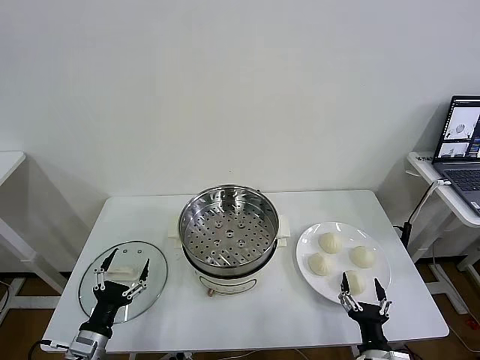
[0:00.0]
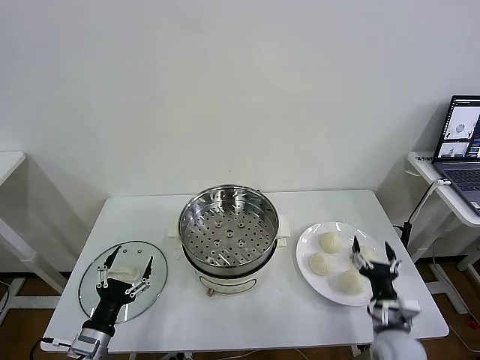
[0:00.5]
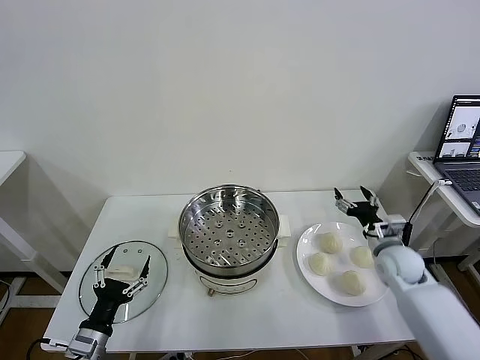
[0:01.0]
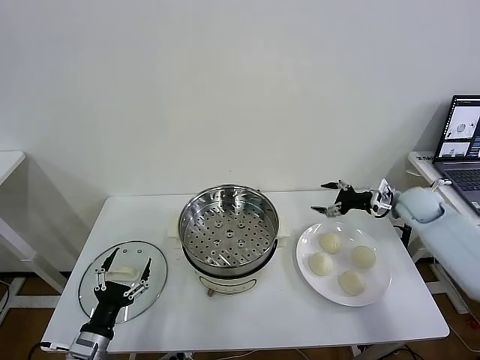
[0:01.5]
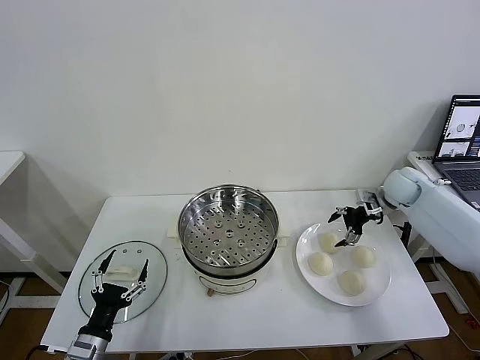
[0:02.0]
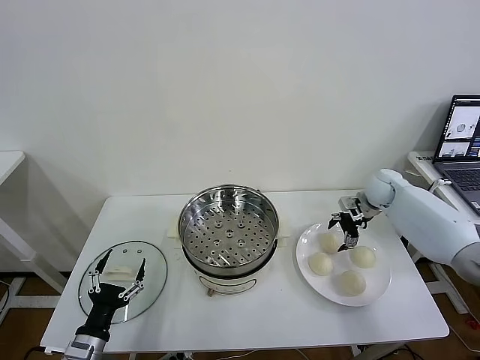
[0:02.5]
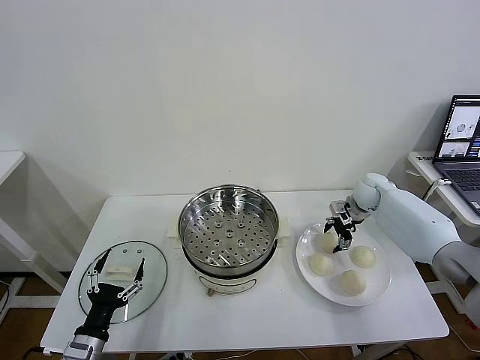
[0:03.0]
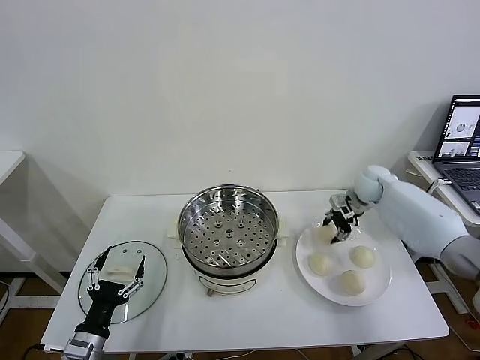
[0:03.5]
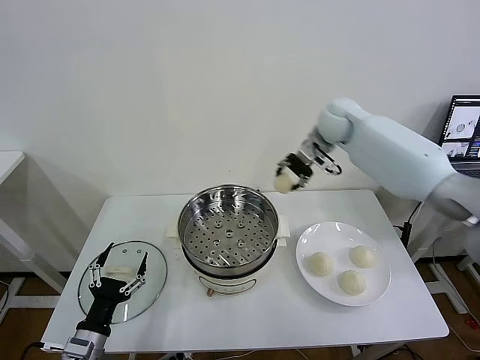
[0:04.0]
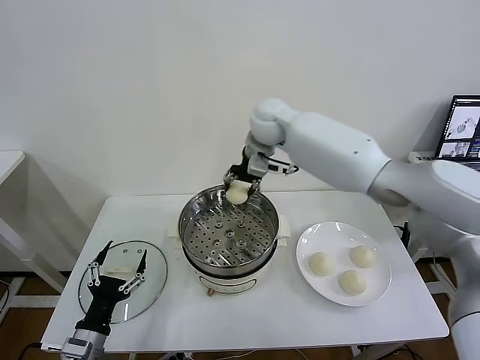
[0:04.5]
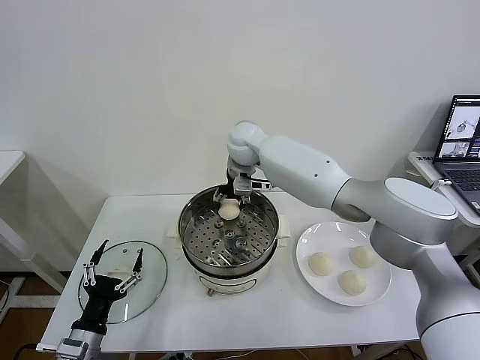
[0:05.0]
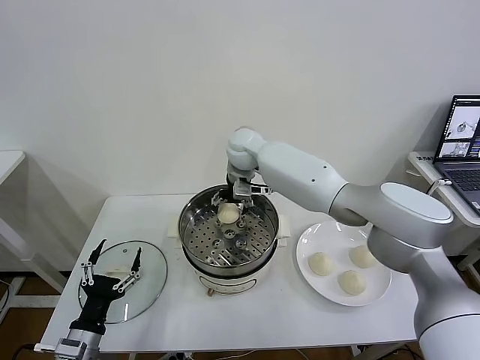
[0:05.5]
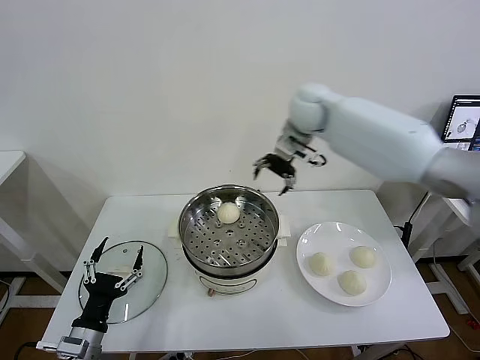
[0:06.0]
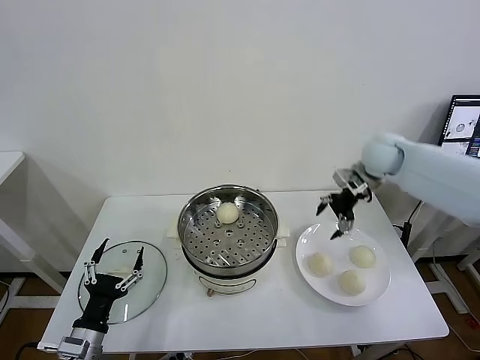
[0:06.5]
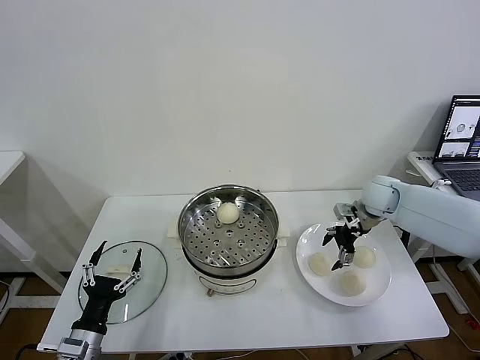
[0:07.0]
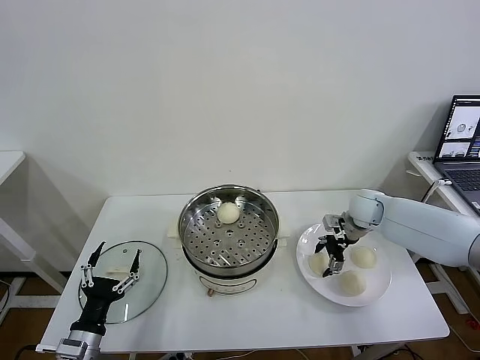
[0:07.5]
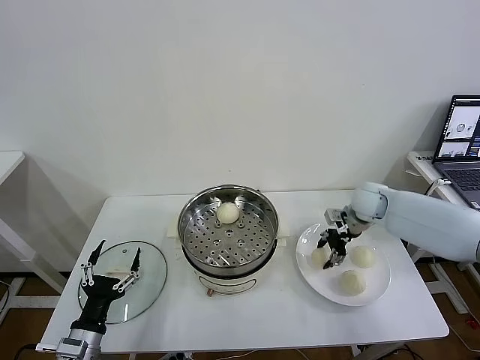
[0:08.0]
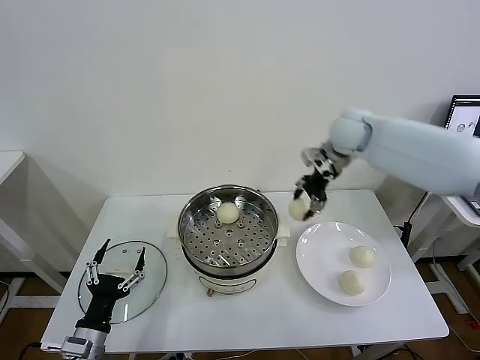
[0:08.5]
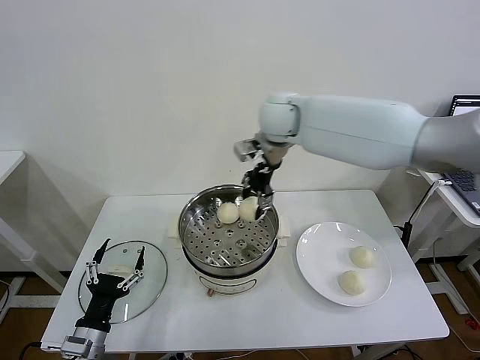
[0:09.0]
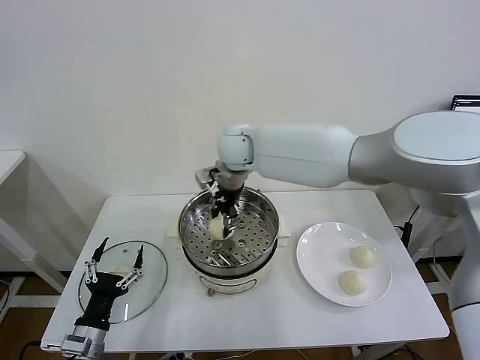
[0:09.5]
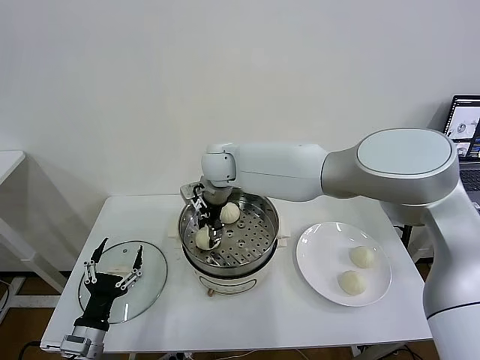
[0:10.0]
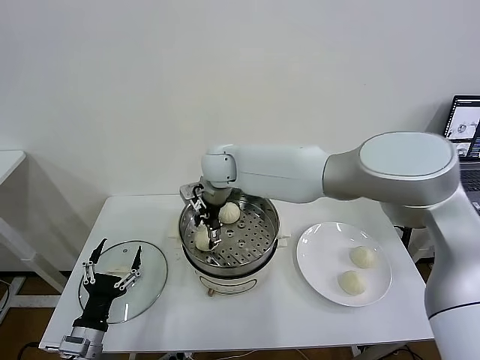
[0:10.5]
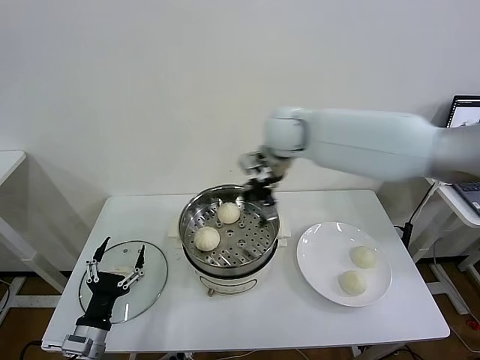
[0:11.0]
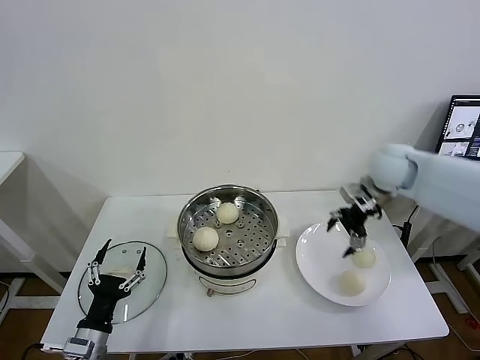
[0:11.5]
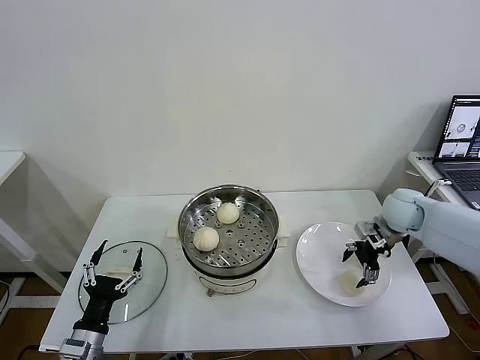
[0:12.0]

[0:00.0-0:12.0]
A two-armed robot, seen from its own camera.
Task of the whole recording: take steamed baozi put them in steamer then cover it.
Step, 0:00.0 to 0:03.0: Grasp the baozi in the plate with right gripper.
Step, 0:03.5 to 0:05.0: Place the baozi on the steamer with right gripper.
Step, 0:06.0 to 0:07.5: Grasp the baozi in the plate with right gripper.
Step, 0:08.0 to 0:10.0: Place the baozi on the steamer with right gripper.
0:02.0 to 0:04.0: The right gripper shifts roughly 30 cm to the left and upward, and closes up.
0:04.0 to 0:06.0: The right gripper reaches about 15 cm to the left, then returns, and opens.
0:06.0 to 0:08.0: The right gripper heads downward and to the right, covering some 25 cm, and closes up.
0:08.0 to 0:10.0: The right gripper is displaced to the left by roughly 35 cm.
0:10.0 to 0:12.0: The right gripper is displaced to the right by about 40 cm, and opens its fingers.

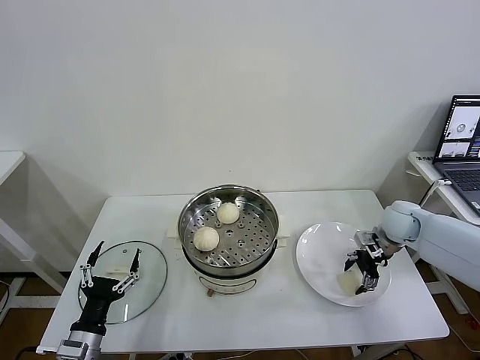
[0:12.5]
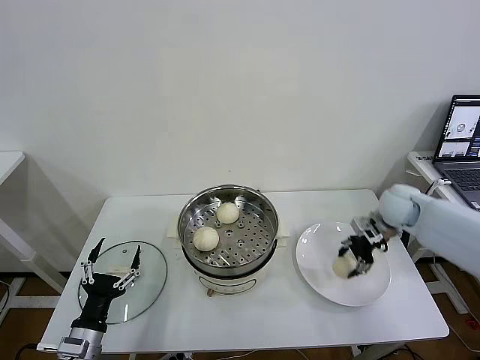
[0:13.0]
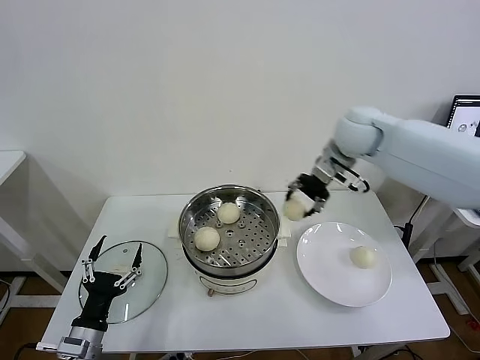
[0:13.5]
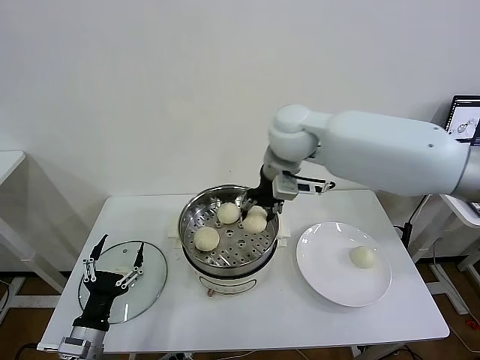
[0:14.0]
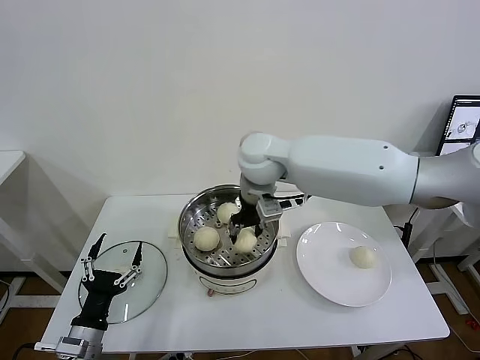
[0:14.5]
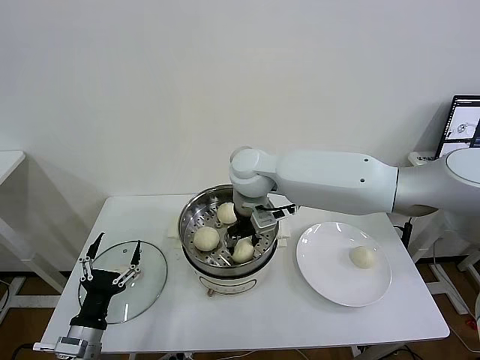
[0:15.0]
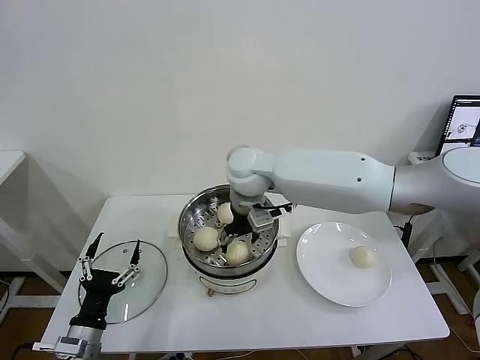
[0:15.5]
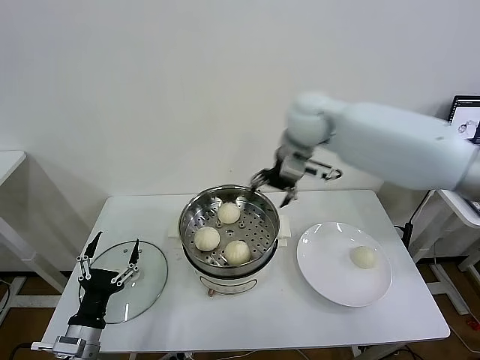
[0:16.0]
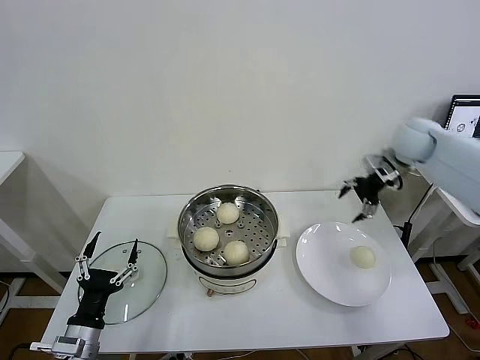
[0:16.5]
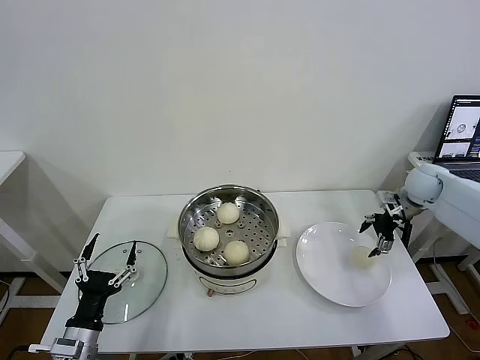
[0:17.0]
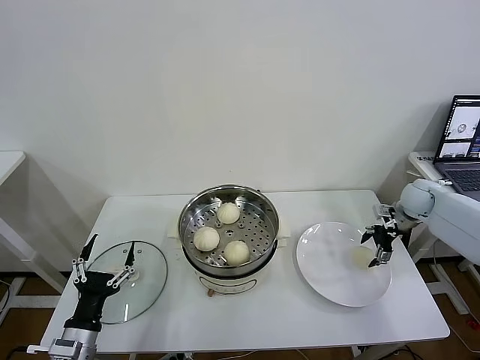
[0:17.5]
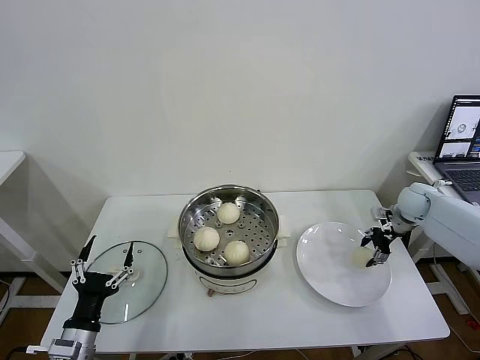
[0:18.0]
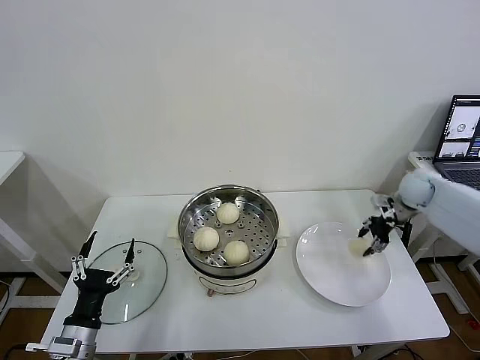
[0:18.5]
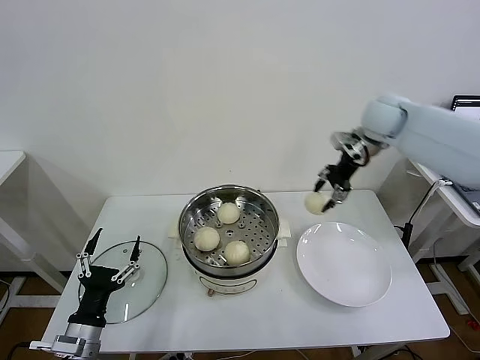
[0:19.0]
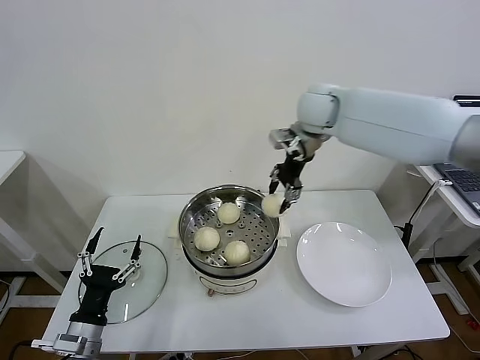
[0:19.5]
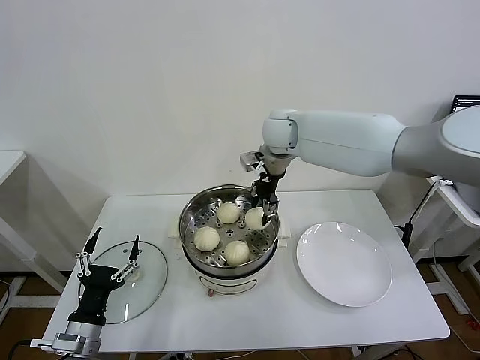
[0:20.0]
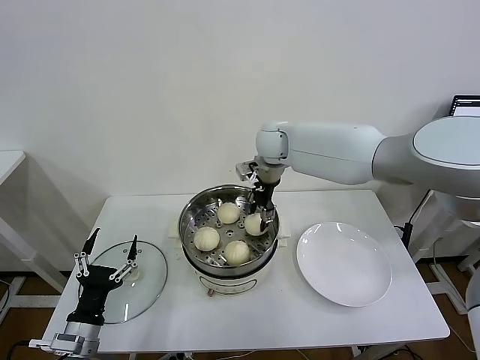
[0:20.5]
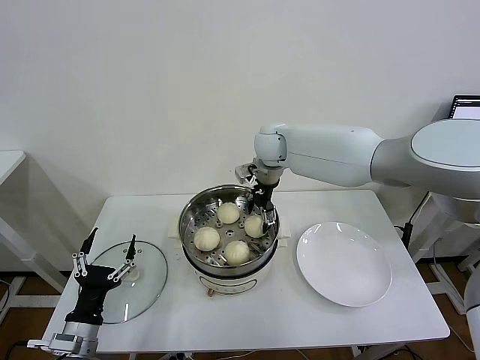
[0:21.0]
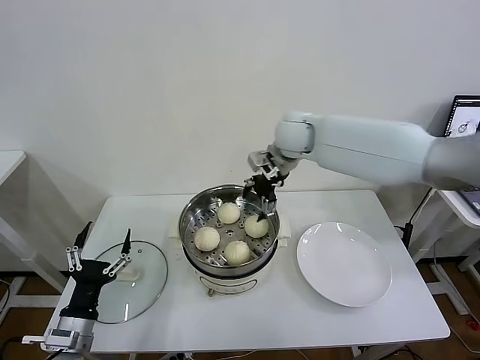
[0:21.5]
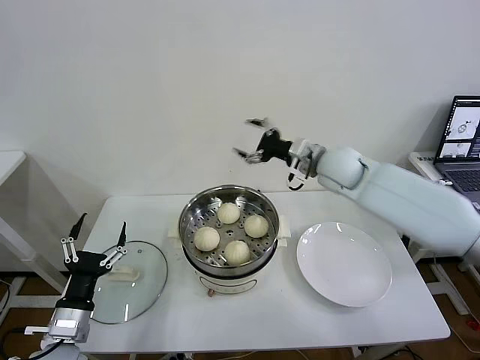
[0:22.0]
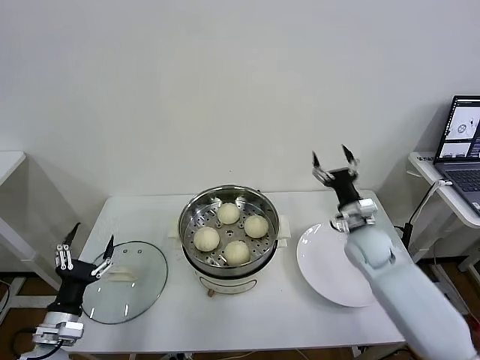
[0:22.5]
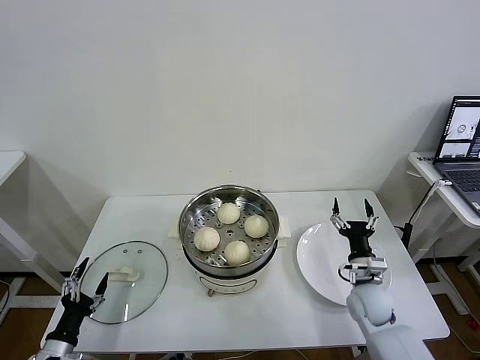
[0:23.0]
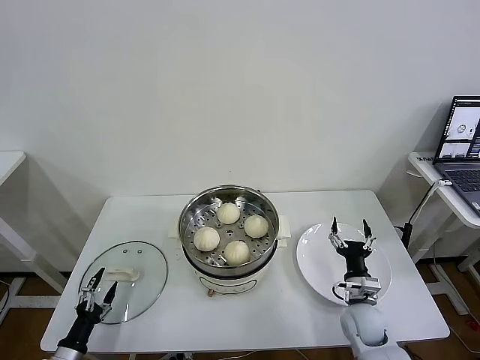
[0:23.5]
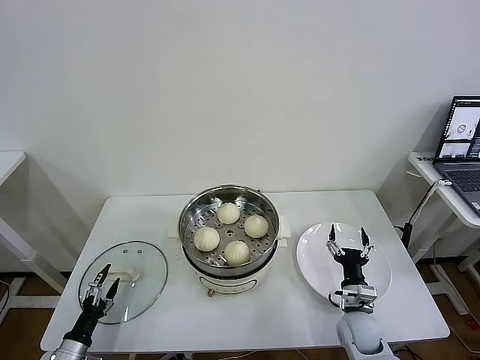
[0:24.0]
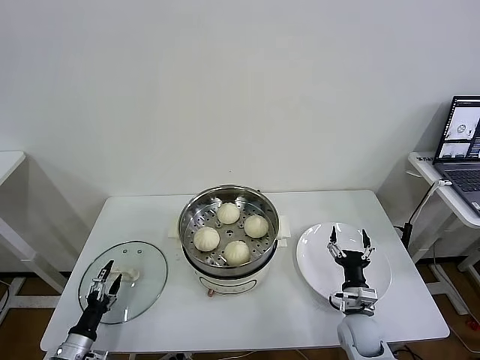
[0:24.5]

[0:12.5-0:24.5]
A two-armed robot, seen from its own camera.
Task of the whole recording: take steamed baozi put them in steamer then cover it.
Step, 0:13.0 to 0:15.0: Place the baozi on the steamer with right gripper.
Step, 0:15.5 to 0:18.0: Grasp the baozi in the plate with right gripper.
Step, 0:18.5 to 0:20.5: Place the baozi on the steamer with right gripper.
0:12.5 to 0:14.5: The right gripper is displaced to the left and upward by about 40 cm, and closes up.
0:14.5 to 0:16.5: The right gripper goes about 35 cm to the right, and opens.
0:16.5 to 0:18.5: The right gripper moves downward, roughly 10 cm, and closes its fingers.
0:18.5 to 0:20.5: The right gripper shifts roughly 35 cm to the left.
0:20.5 to 0:22.5: The left gripper changes place by about 5 cm. Meanwhile the right gripper is displaced to the right, downward and backward by some 35 cm, and opens up.
0:22.5 to 0:24.5: The left gripper is displaced downward by some 15 cm. Meanwhile the right gripper shifts roughly 20 cm downward and backward.

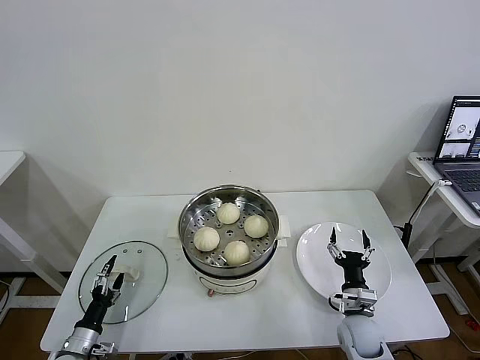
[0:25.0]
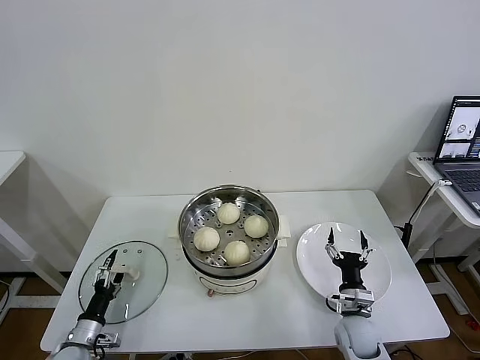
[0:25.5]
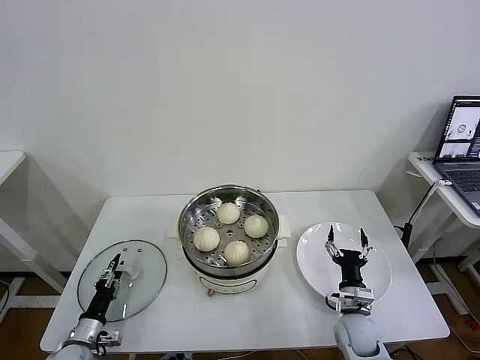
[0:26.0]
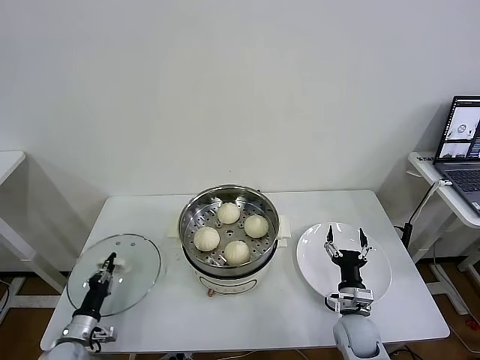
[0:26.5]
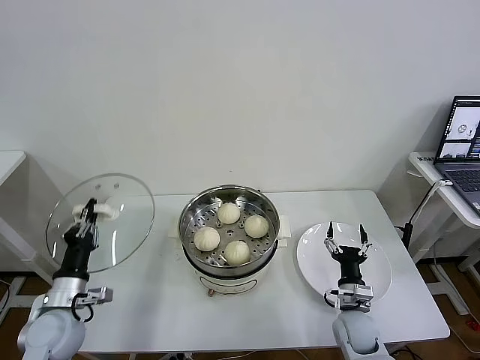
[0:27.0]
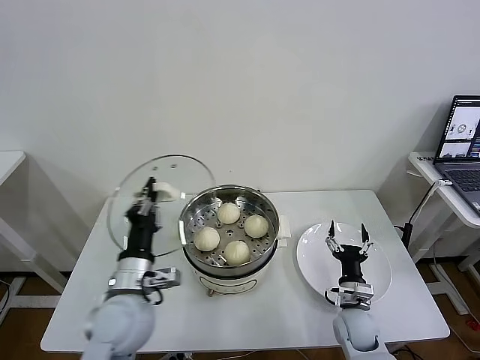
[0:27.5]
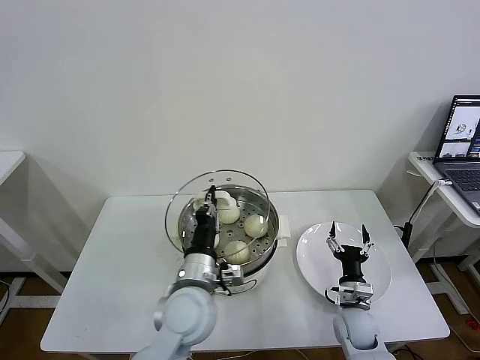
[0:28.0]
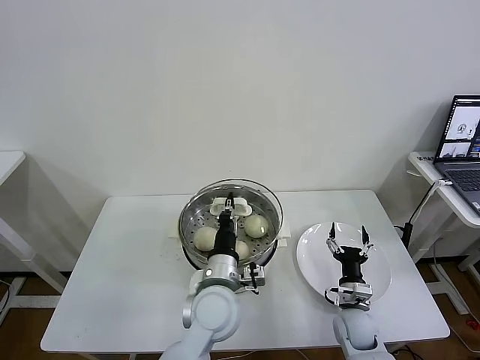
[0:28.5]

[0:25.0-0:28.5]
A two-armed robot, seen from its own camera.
Task of the whole recording: take steamed baozi put them in steamer then cover it.
0:25.0 to 0:27.0: The left gripper moves upward, some 15 cm, and closes.
0:27.0 to 0:28.5: The left gripper moves to the right, approximately 30 cm.
